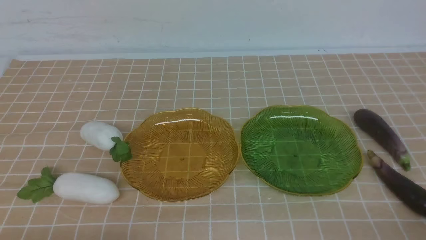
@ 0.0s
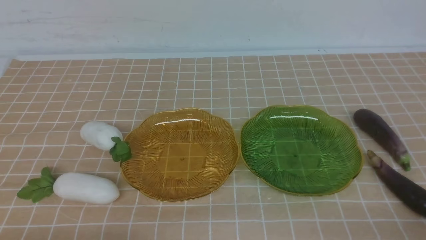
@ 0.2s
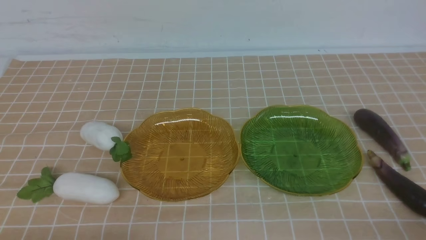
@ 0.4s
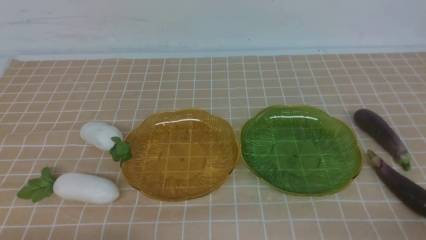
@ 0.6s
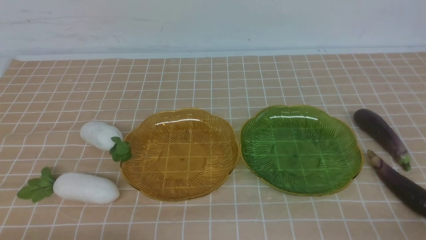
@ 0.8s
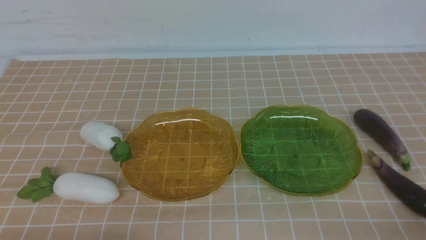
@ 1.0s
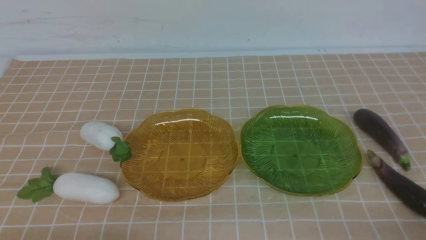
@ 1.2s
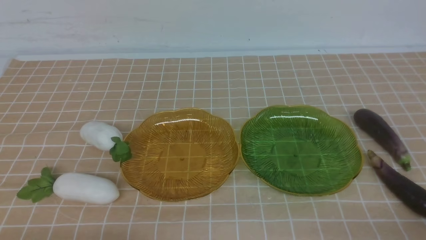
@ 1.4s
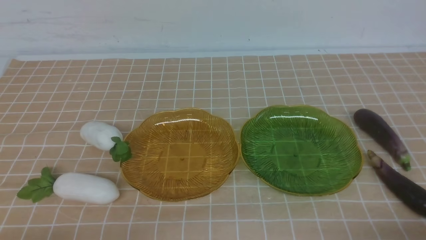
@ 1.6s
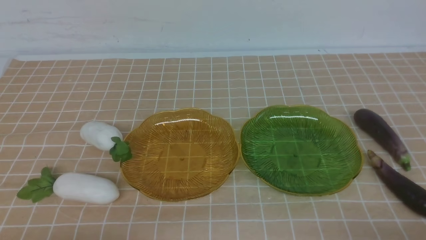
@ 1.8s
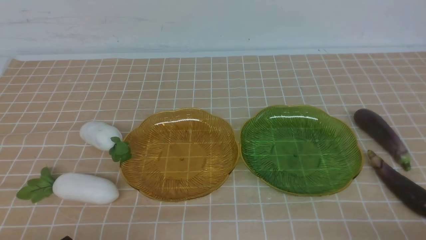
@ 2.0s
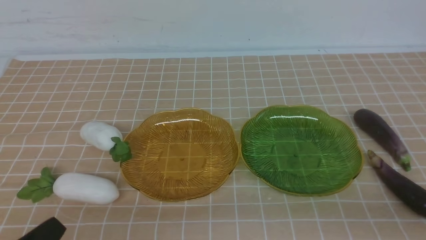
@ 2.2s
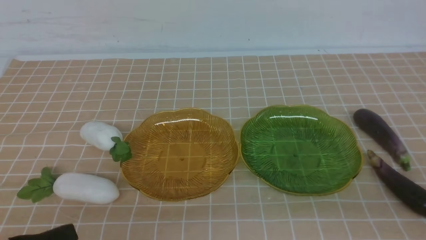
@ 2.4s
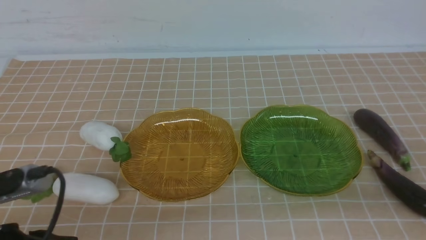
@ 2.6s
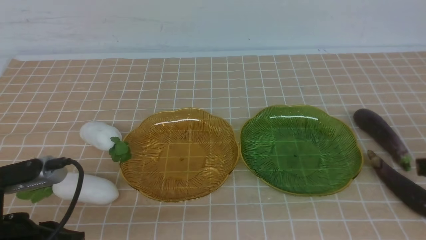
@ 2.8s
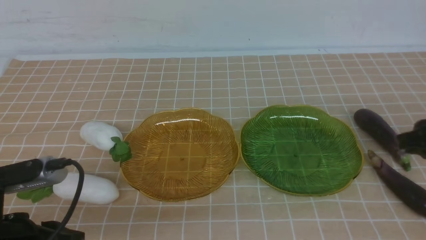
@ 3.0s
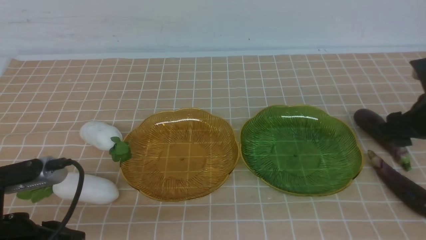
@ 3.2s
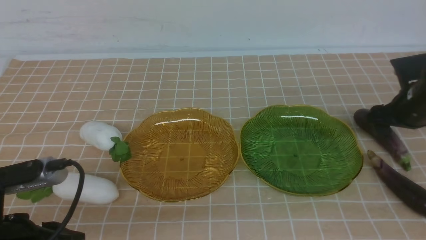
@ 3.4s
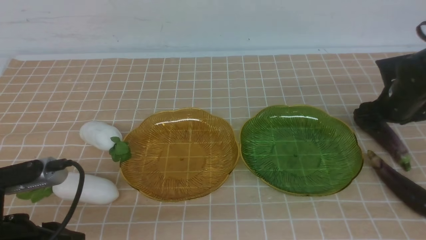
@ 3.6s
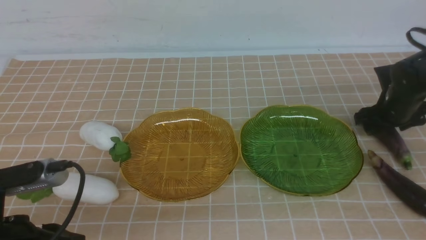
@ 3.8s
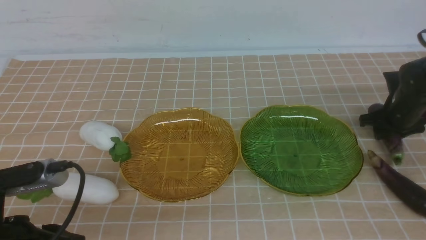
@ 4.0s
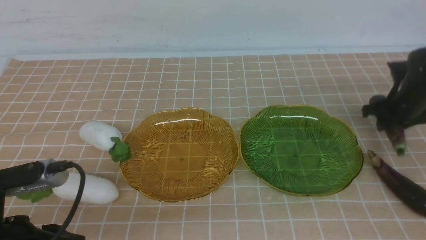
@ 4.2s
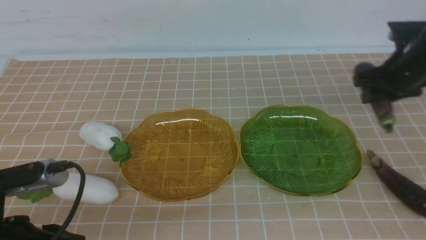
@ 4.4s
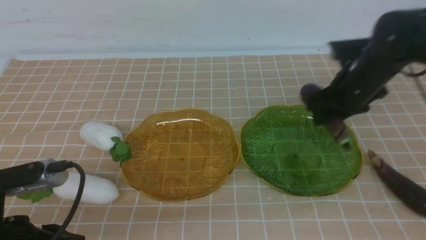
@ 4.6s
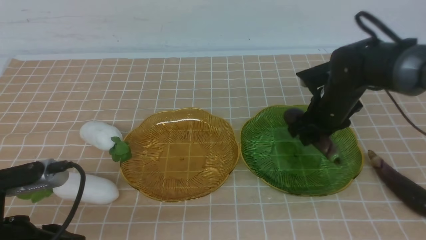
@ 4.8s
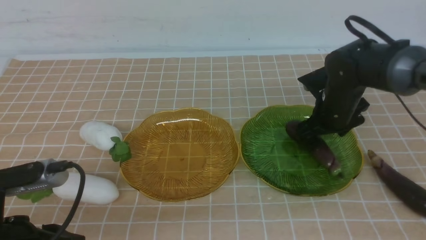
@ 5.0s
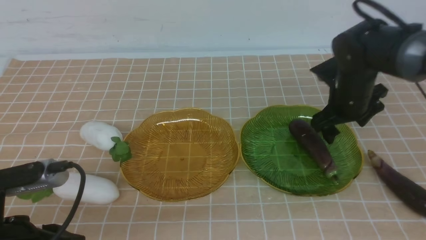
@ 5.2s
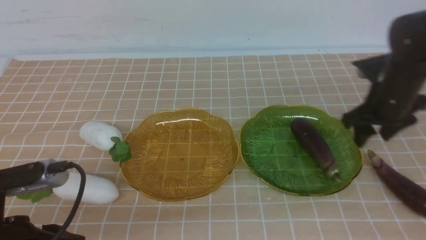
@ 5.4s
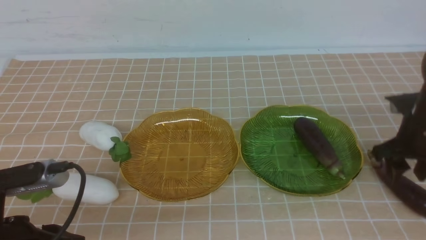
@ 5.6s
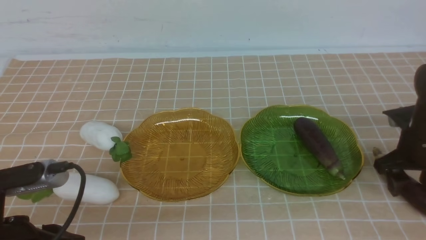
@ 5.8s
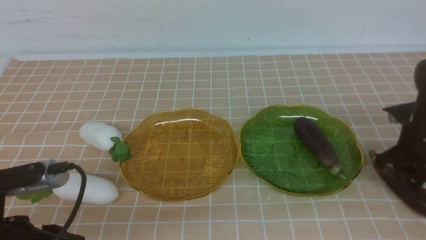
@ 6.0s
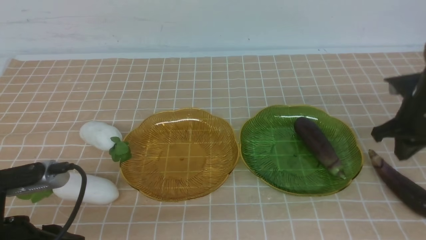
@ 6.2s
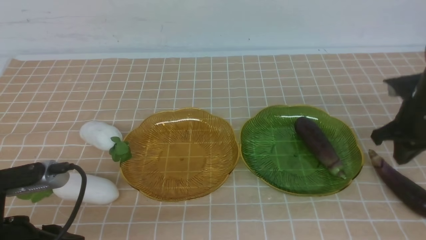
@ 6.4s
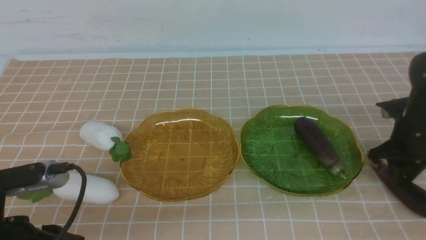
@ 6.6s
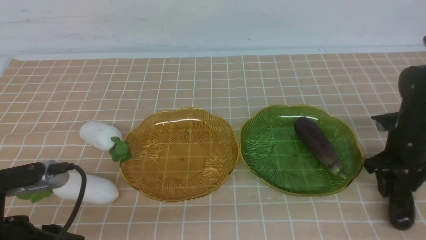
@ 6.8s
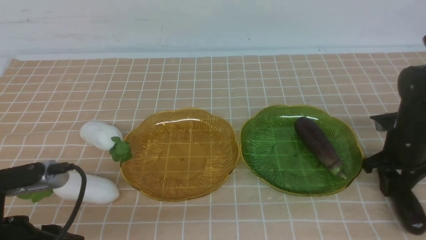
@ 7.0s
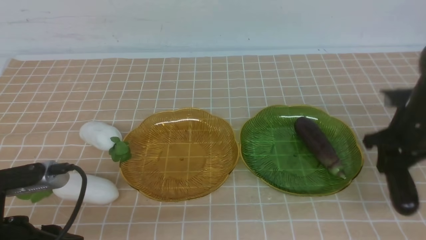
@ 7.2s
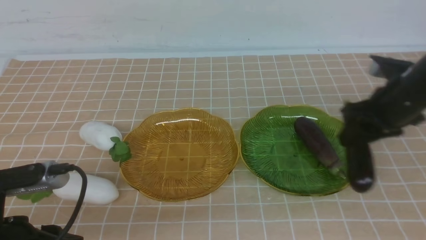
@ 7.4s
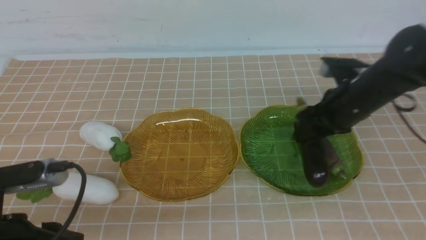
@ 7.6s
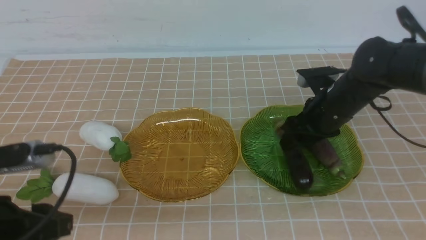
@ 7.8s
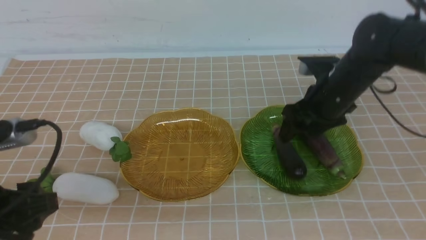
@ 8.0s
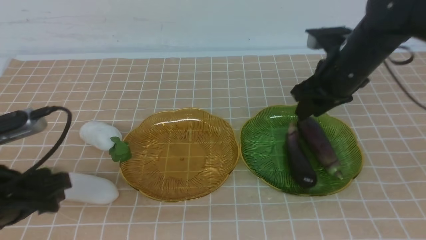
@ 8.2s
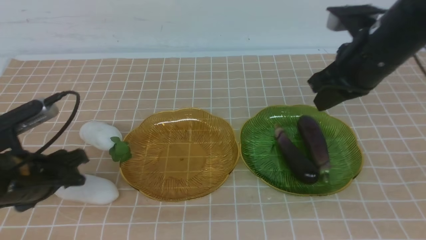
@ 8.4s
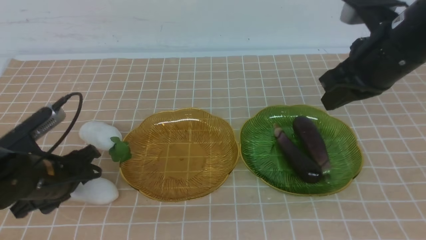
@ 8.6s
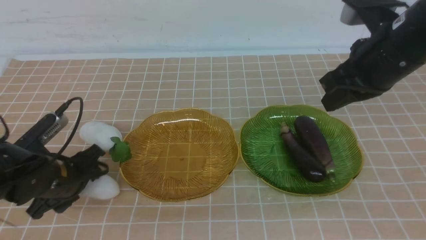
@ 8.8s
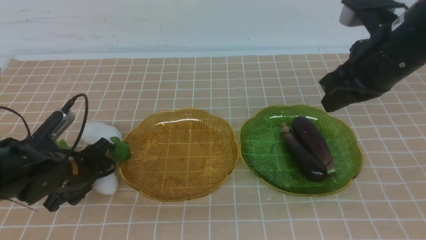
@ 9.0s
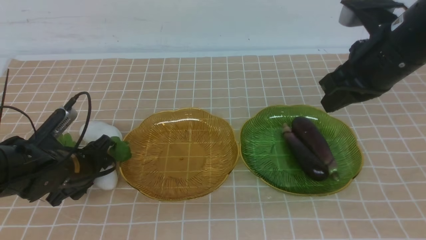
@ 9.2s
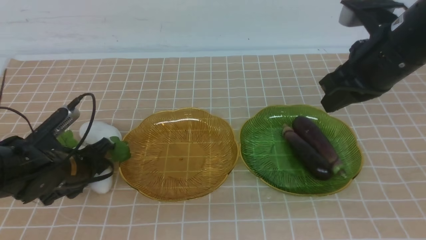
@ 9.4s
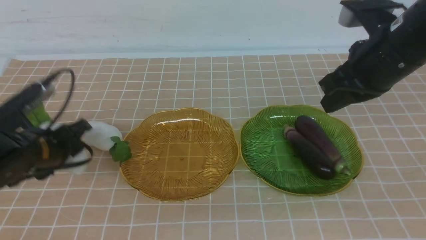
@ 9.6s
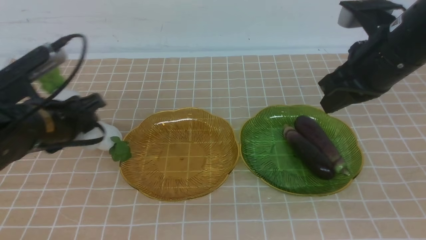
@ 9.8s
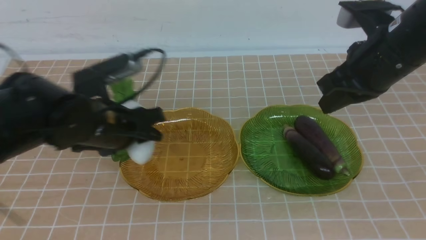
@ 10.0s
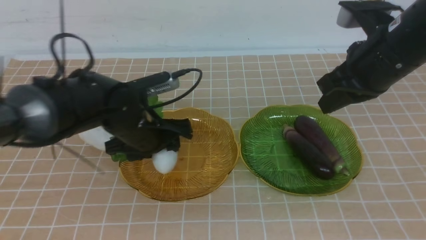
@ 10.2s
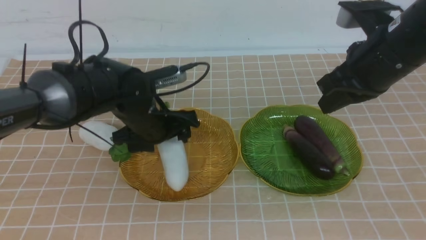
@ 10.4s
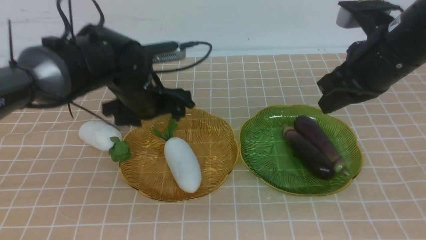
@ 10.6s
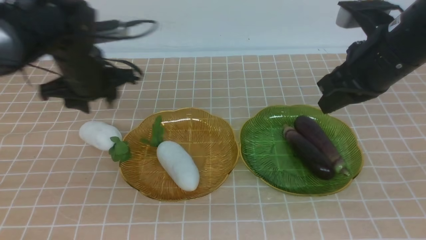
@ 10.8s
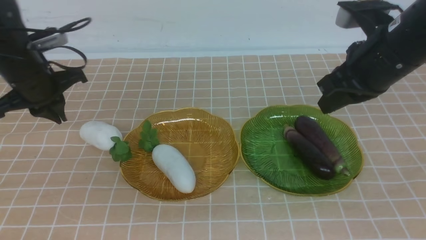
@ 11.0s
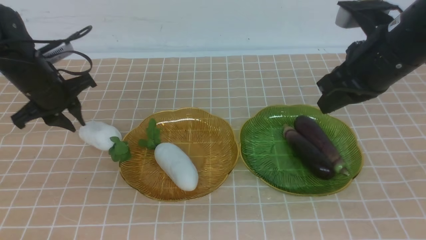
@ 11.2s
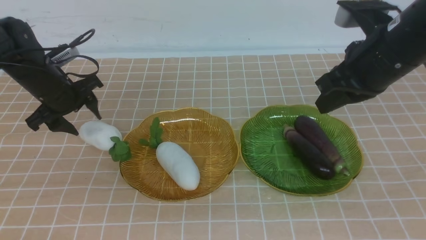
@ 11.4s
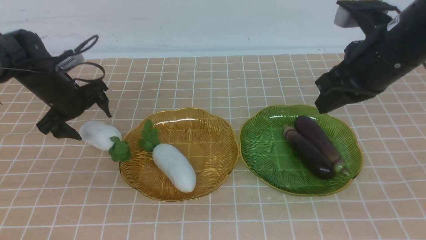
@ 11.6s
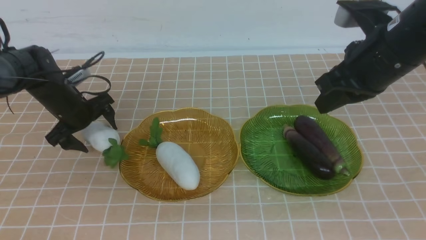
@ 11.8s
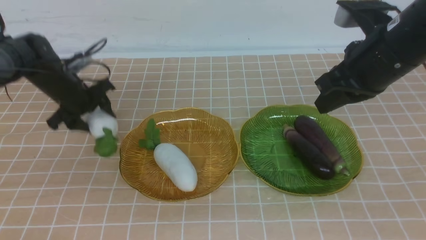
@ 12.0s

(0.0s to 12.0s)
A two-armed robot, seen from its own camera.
Step, 0.0s - 8.0s: use the right arm to grab an eggplant and put it into the right plate.
1.6s - 3.0s: The right gripper is displaced forward and upward by roughly 20 cm, and opens up. Meanwhile the left gripper heads upward and forward, covering approximately 10 cm.
3.0s - 4.4s: The right gripper moves forward, about 15 cm, and opens and closes again.
4.4s - 6.0s: The right gripper goes roughly 5 cm backward, and opens, then closes again.
6.0s - 7.6s: The right gripper shifts approximately 10 cm to the left.
7.6s - 9.0s: The right gripper travels upward and backward by approximately 15 cm, and closes its fingers; the left gripper shifts some 20 cm forward and downward.
9.0s - 10.4s: The left gripper is displaced to the right, upward and forward by approximately 15 cm.
10.4s - 12.0s: The left gripper moves forward and to the left, approximately 10 cm, and closes, then opens again.

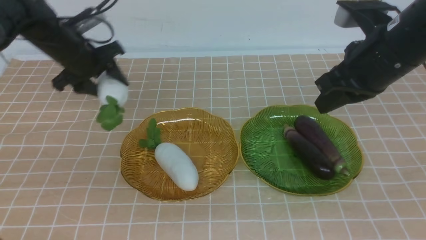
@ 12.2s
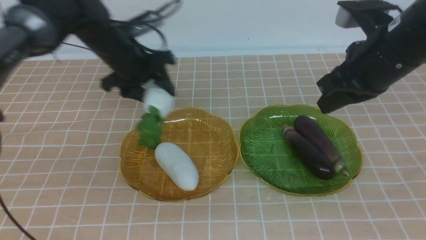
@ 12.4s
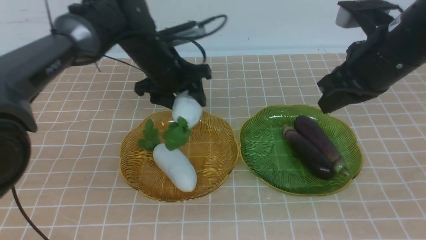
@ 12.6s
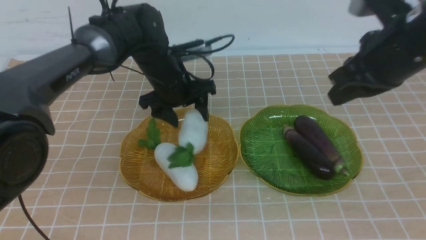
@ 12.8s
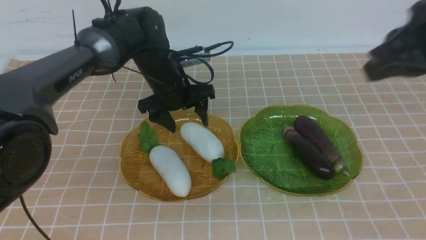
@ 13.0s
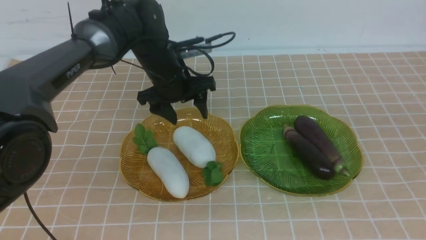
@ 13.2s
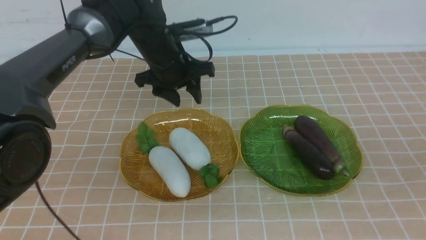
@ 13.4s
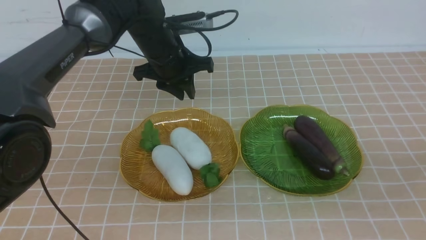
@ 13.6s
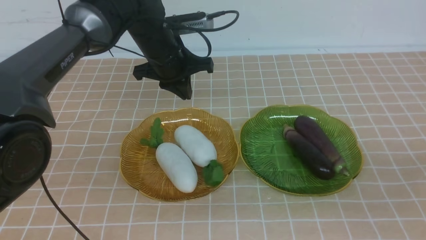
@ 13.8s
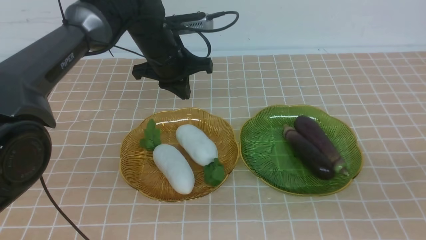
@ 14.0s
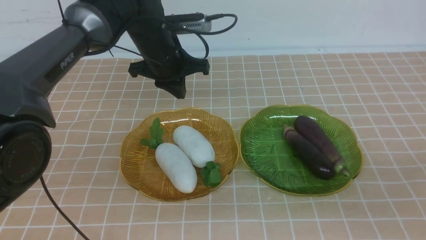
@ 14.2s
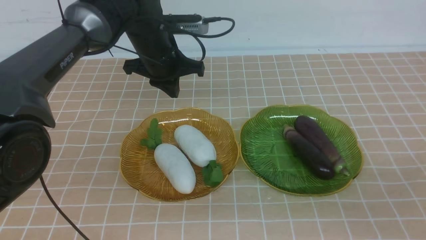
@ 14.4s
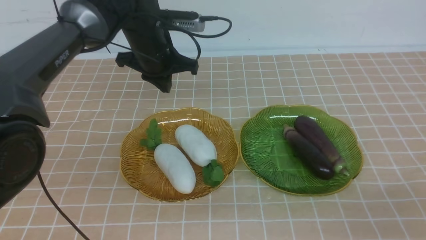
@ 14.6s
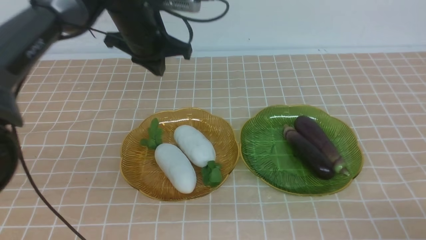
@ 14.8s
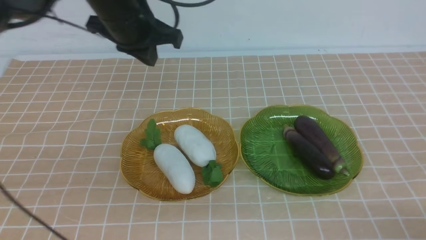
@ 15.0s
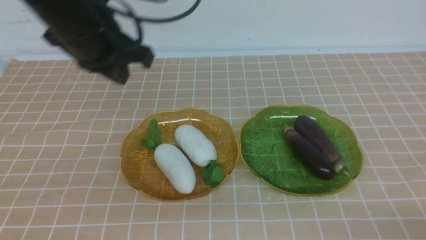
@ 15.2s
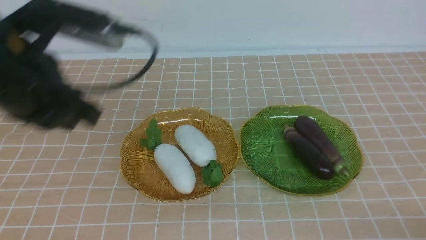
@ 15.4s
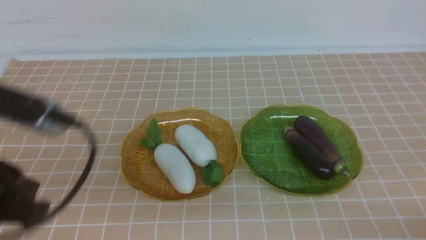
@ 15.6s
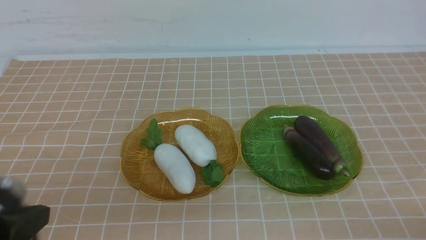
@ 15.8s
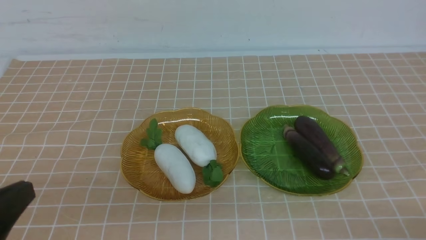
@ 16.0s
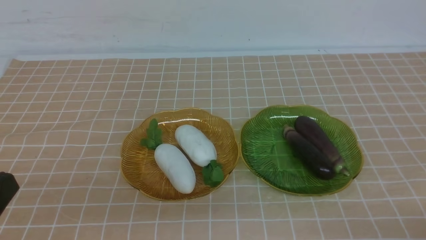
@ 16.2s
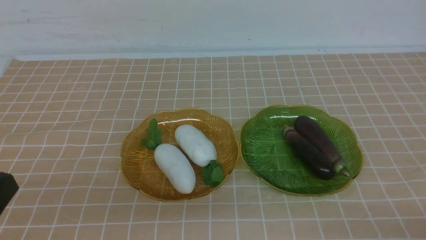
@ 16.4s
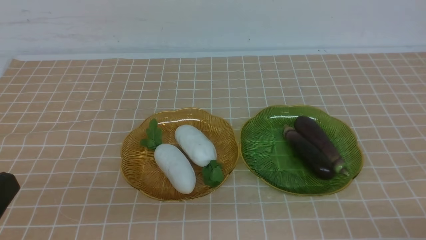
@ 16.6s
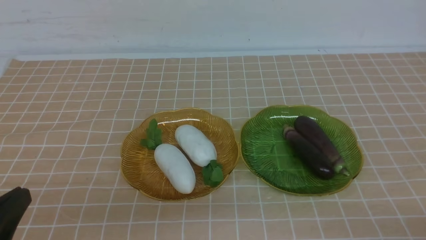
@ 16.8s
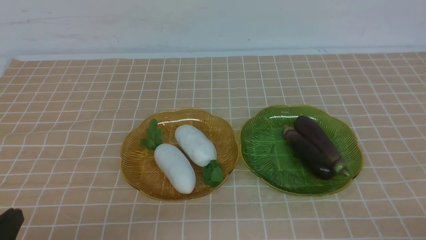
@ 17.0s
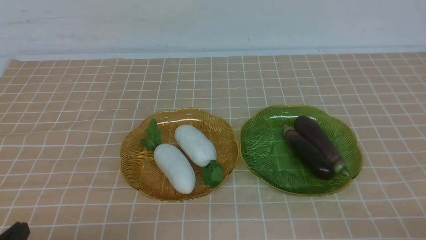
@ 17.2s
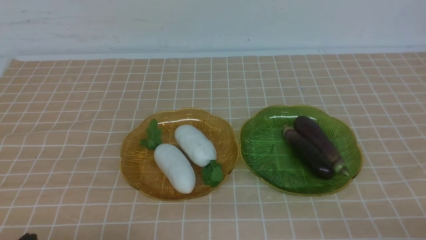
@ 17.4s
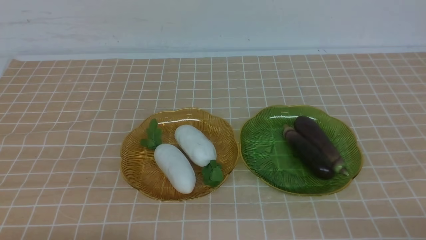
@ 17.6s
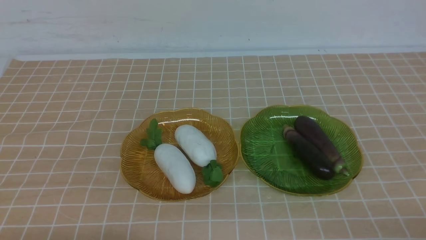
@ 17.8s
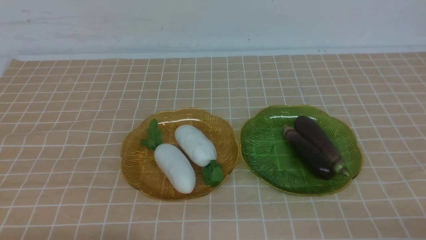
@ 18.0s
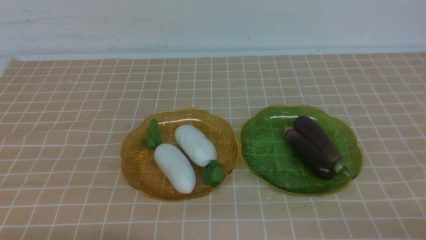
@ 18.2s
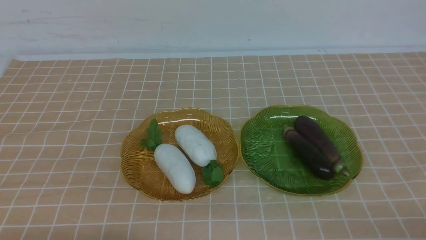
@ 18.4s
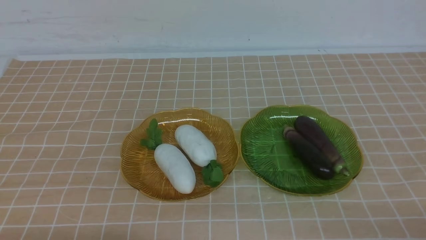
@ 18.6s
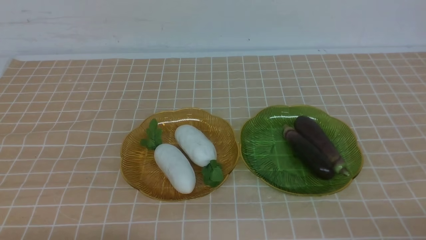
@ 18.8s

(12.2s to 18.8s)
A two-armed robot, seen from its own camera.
12.2s - 13.8s: The right gripper heads backward, covering approximately 25 cm, while the left gripper closes its fingers.
13.8s - 15.4s: The left gripper goes some 35 cm backward. The right gripper heads downward, covering about 10 cm.
15.4s - 17.2s: The left gripper travels downward by about 15 cm.
17.2s - 18.8s: The two grippers keep their place.
